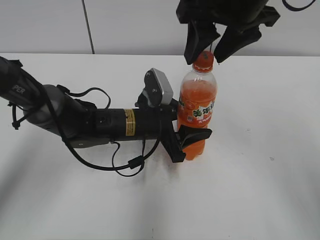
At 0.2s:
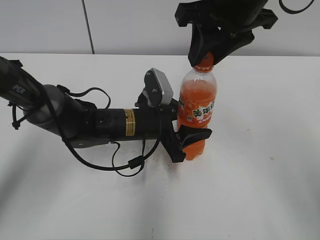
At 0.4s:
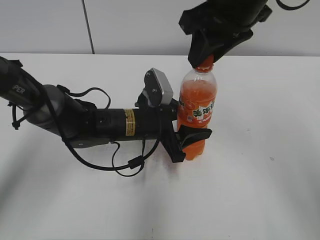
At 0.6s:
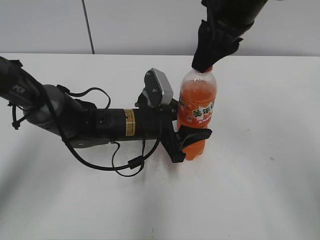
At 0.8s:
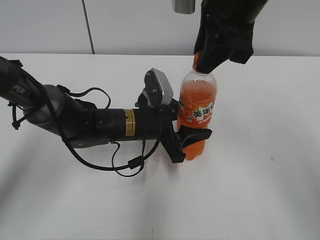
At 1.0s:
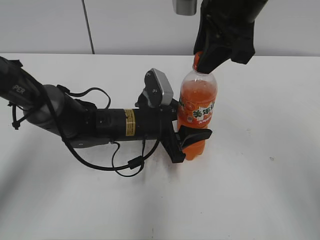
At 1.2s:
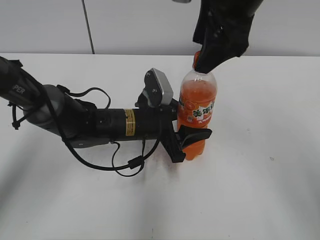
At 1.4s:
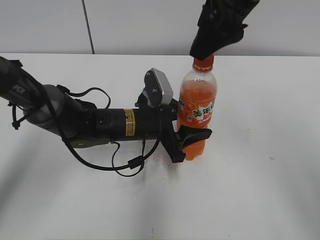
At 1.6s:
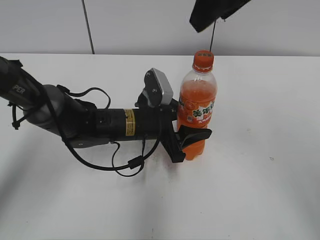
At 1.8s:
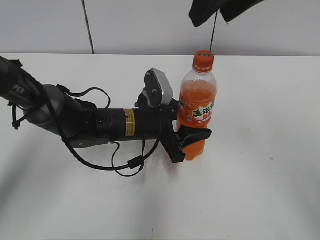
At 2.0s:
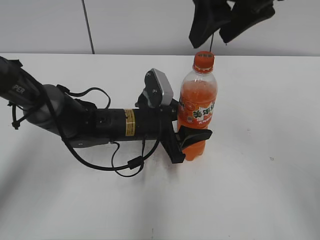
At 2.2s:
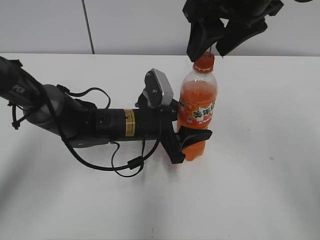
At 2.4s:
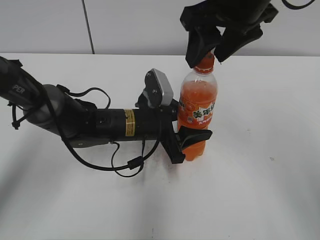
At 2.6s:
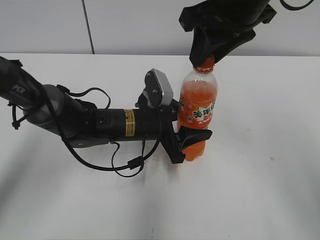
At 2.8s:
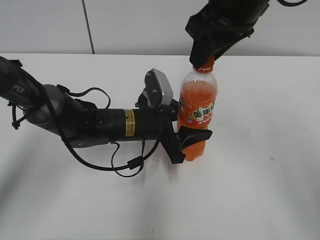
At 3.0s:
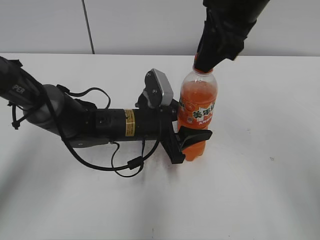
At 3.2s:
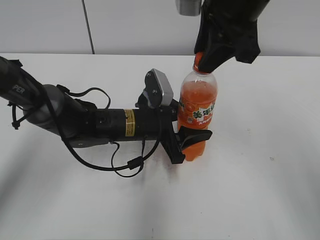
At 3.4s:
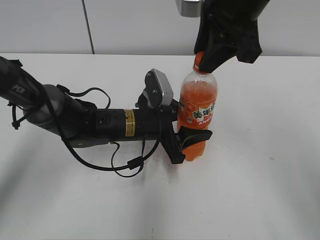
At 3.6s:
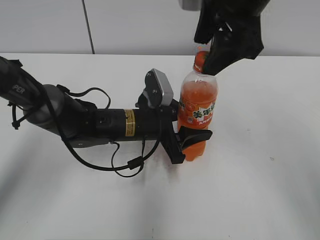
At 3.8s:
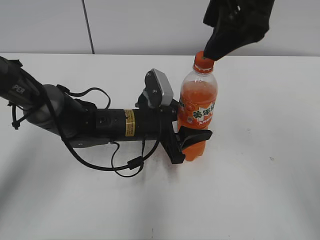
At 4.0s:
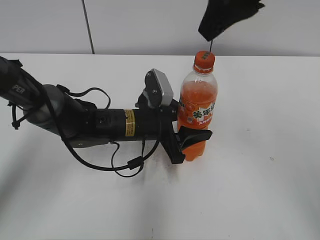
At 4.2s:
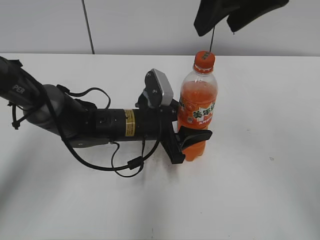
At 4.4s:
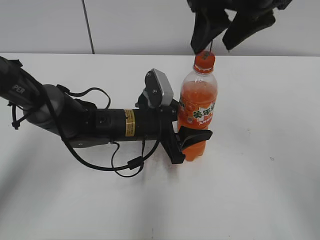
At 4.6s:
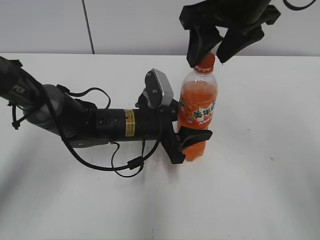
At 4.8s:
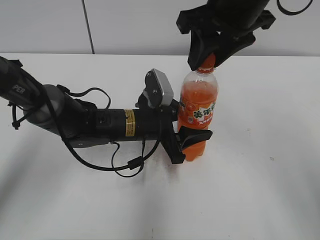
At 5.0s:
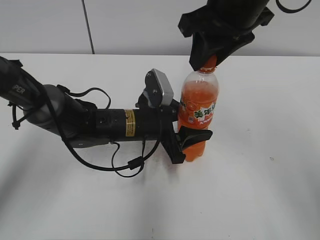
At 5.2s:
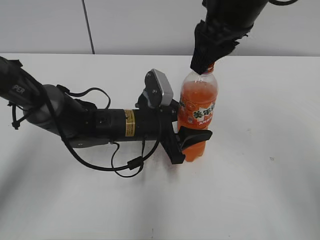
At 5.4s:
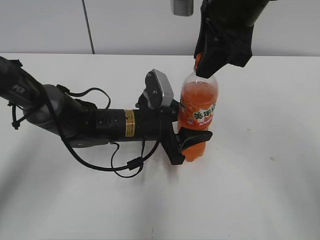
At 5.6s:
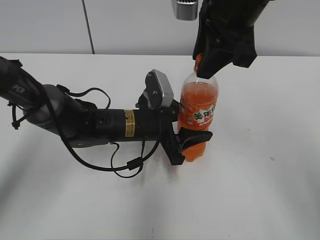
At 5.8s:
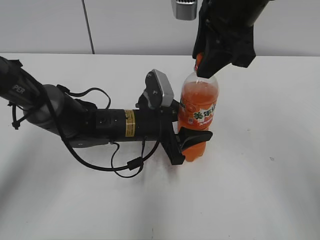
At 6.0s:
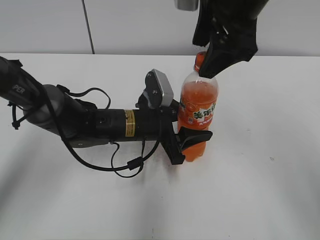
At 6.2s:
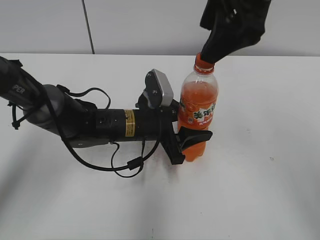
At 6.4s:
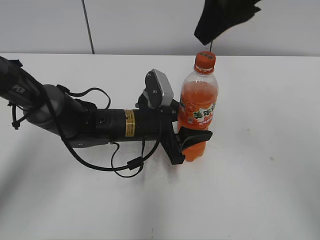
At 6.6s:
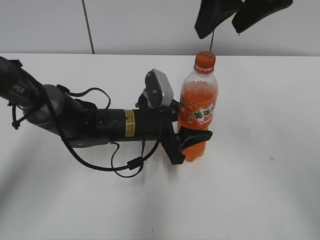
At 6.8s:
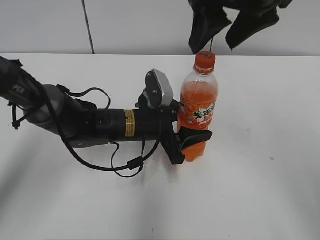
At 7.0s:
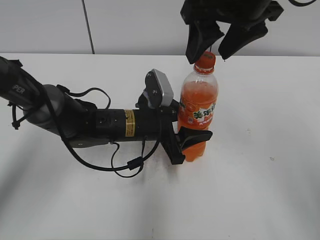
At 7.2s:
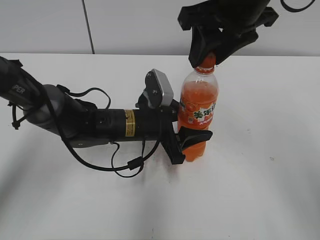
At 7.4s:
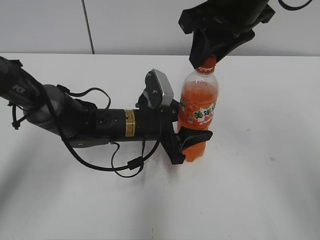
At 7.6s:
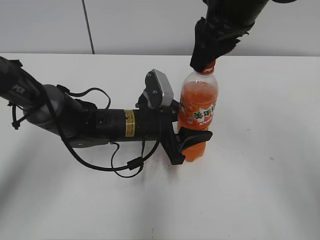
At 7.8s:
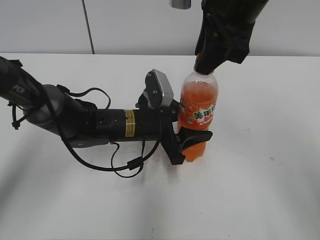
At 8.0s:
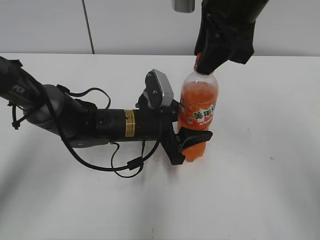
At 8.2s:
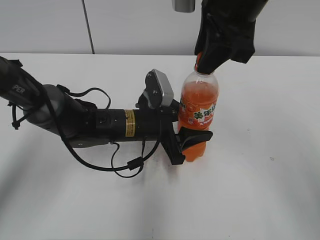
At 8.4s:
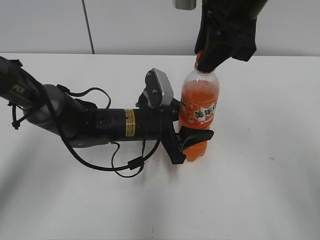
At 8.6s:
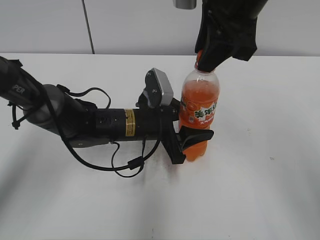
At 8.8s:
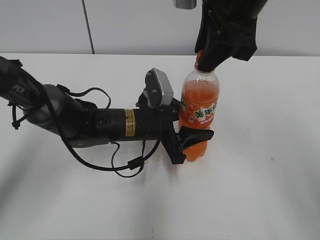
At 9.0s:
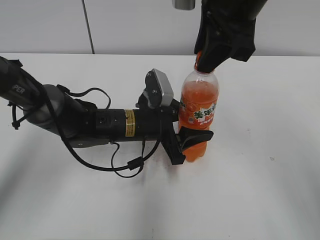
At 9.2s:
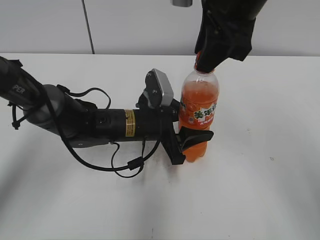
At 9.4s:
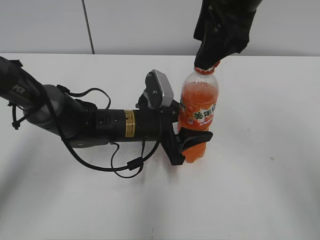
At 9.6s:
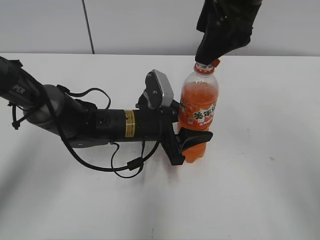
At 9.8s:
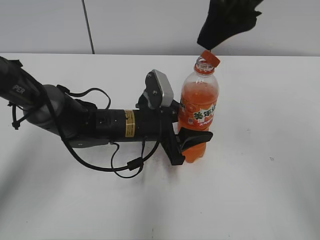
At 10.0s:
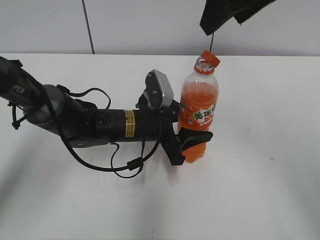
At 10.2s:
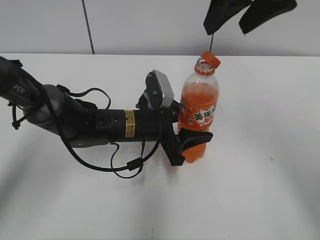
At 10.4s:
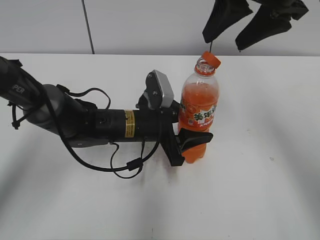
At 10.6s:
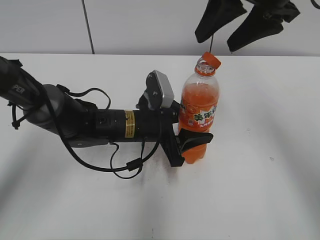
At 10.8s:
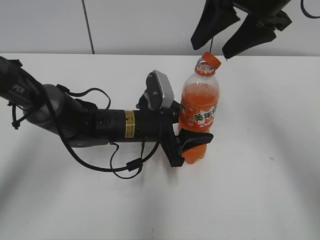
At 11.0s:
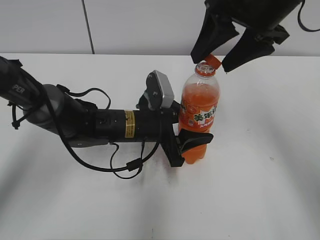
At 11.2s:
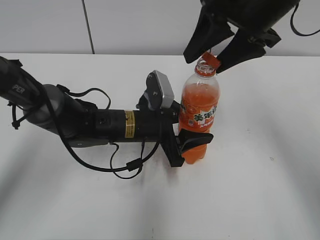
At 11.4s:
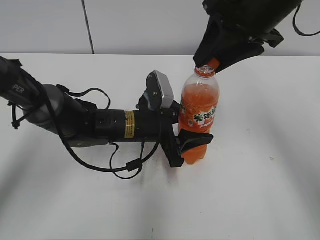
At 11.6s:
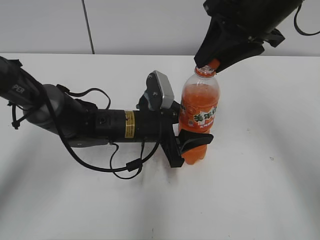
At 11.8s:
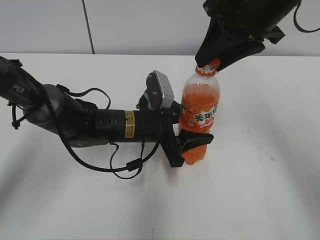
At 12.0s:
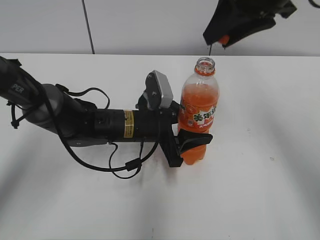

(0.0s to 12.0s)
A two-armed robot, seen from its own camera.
0.0s - 1.6s: The right gripper moves upward, approximately 5 cm, and closes, then reopens.
1.6s - 3.0s: The right gripper moves downward, roughly 5 cm, and closes up.
3.0s - 4.4s: The right gripper opens up.
4.4s - 6.0s: The right gripper closes, then reopens.
6.0s - 7.6s: The right gripper closes up.
9.0s - 10.4s: The right gripper goes some 5 cm to the right, and opens up.
10.4s - 12.0s: The right gripper closes up.

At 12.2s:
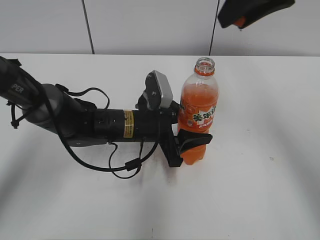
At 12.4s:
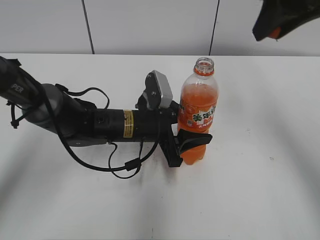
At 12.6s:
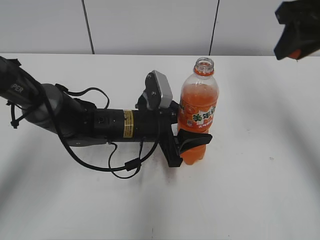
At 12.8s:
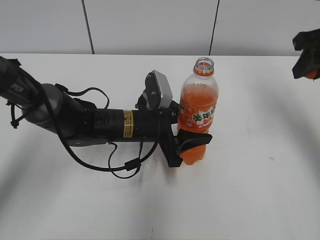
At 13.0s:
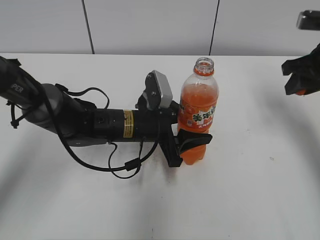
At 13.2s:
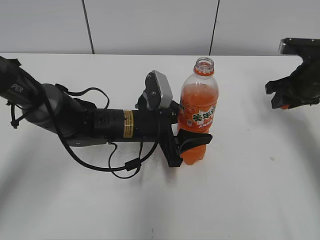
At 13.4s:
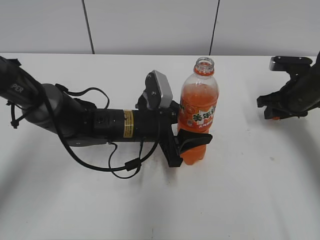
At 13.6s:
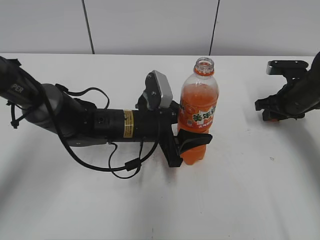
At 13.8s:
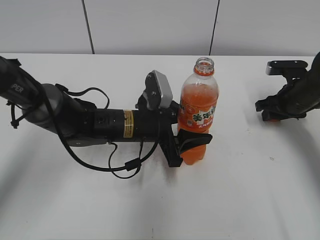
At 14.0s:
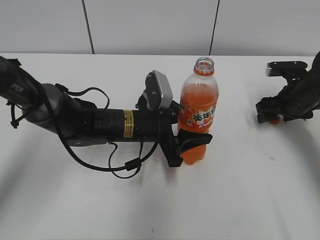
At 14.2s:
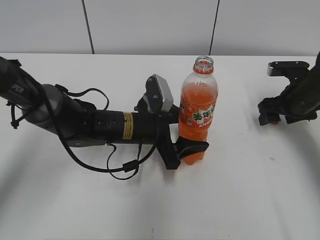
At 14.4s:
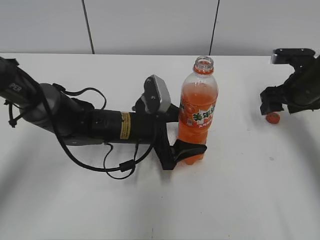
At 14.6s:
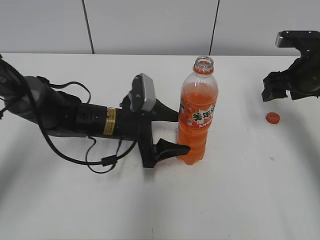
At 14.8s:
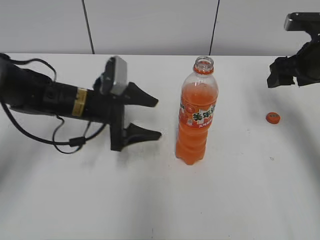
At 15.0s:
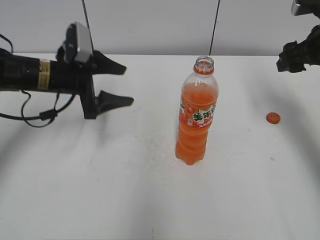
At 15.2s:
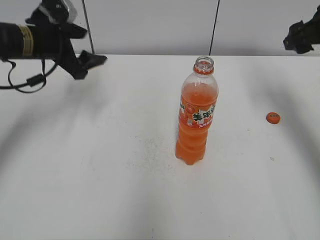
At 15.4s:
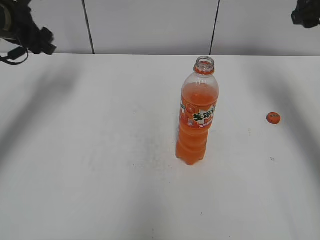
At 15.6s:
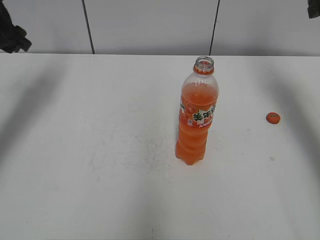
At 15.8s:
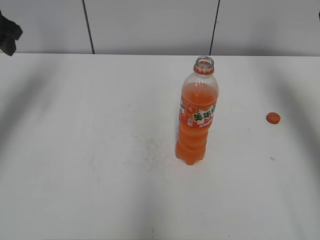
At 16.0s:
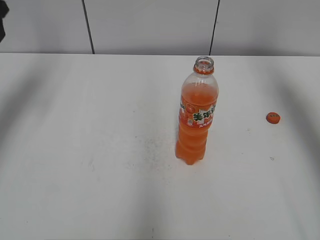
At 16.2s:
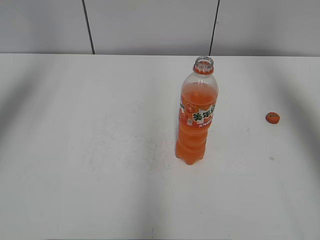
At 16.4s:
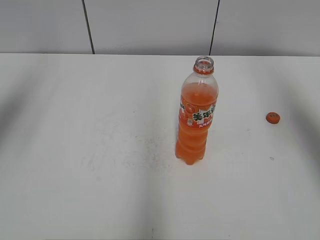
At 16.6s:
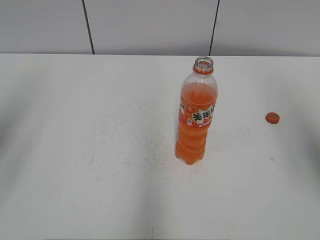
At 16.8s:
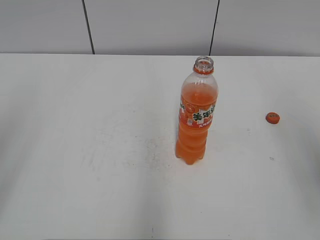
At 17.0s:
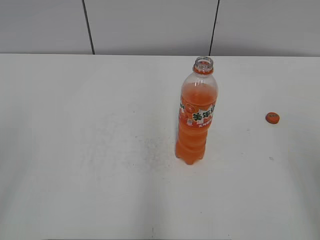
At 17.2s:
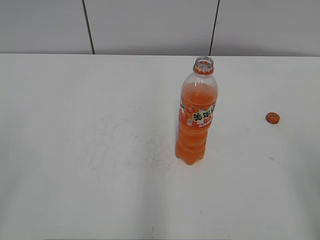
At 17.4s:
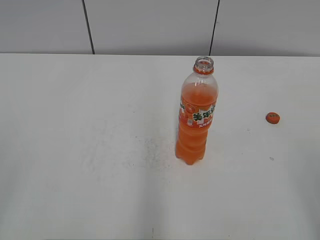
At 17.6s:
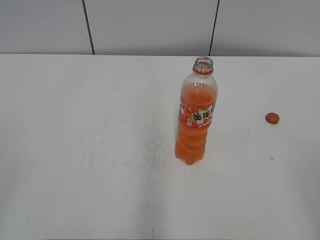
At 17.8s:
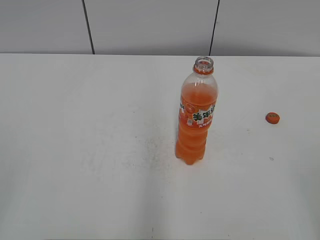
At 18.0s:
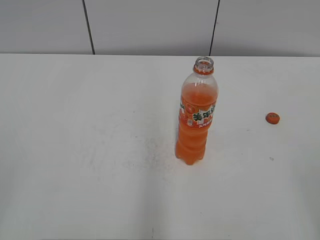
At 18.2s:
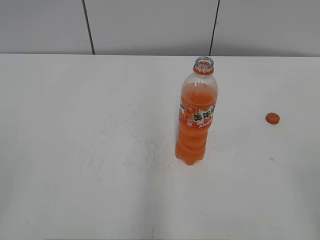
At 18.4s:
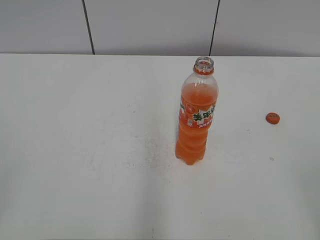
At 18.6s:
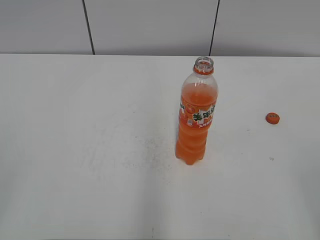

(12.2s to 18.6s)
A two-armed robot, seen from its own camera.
Step, 12.2s - 13.8s: Place the bottle cap on the right.
Step, 14.0s - 14.2s: Place the Mirinda with the left hand.
12.2s - 13.8s: The right gripper moves downward and to the right, some 30 cm.
13.8s - 15.4s: The left gripper is displaced to the left, upward and forward by about 30 cm, and opens up. Meanwhile the right gripper heads upward, covering approximately 20 cm, and opens up.
15.4s - 17.0s: Both grippers travel together backward, approximately 35 cm.

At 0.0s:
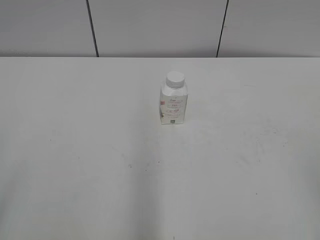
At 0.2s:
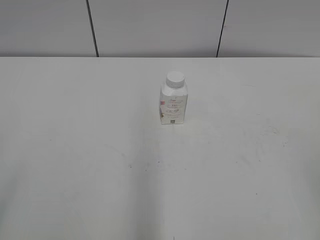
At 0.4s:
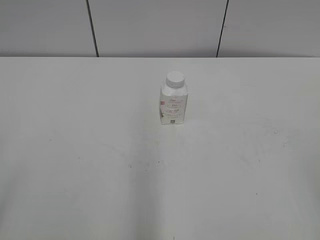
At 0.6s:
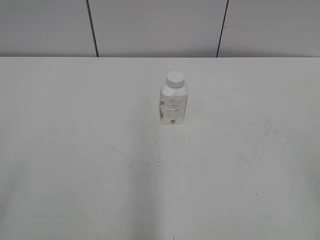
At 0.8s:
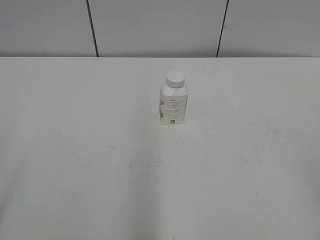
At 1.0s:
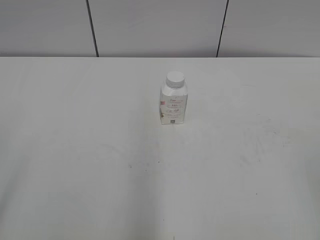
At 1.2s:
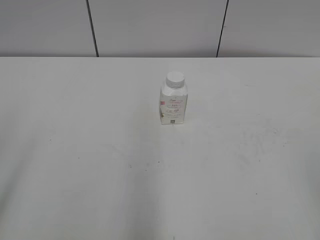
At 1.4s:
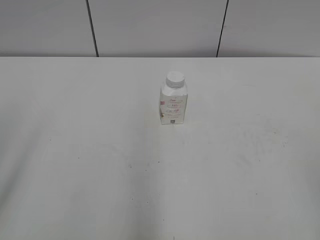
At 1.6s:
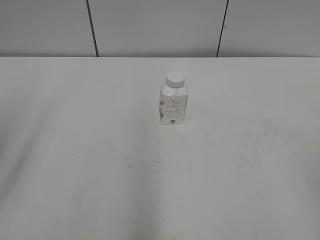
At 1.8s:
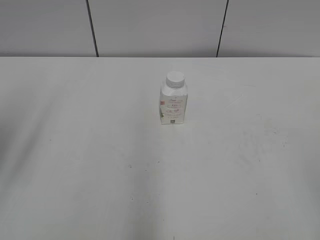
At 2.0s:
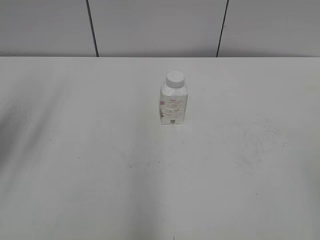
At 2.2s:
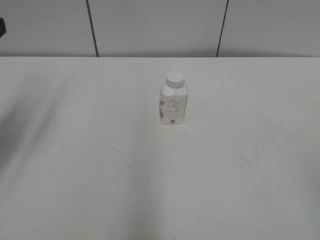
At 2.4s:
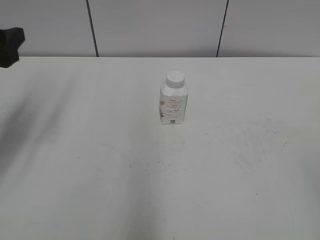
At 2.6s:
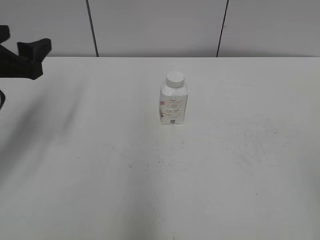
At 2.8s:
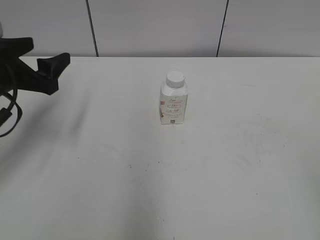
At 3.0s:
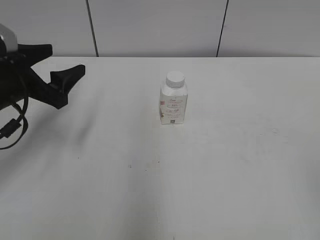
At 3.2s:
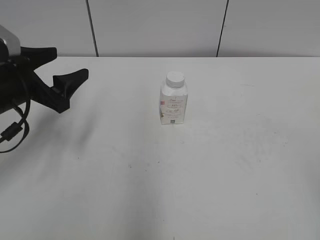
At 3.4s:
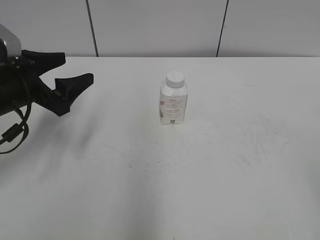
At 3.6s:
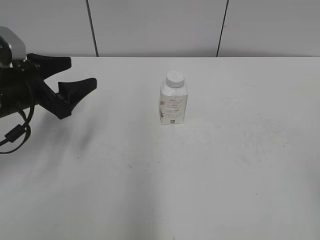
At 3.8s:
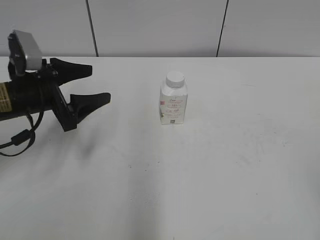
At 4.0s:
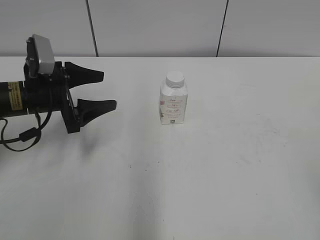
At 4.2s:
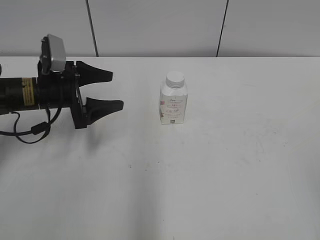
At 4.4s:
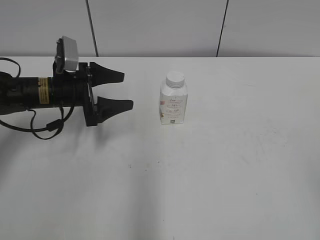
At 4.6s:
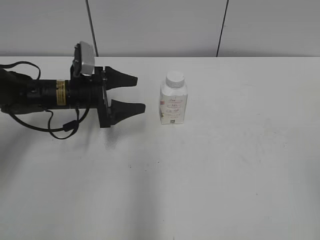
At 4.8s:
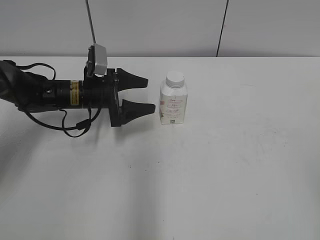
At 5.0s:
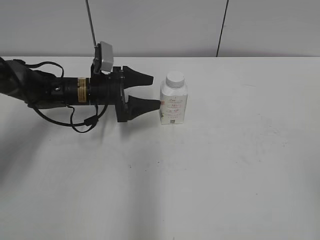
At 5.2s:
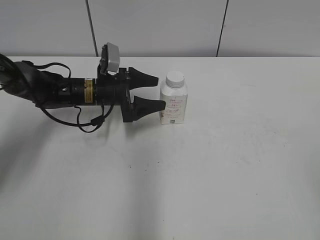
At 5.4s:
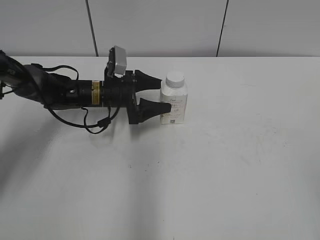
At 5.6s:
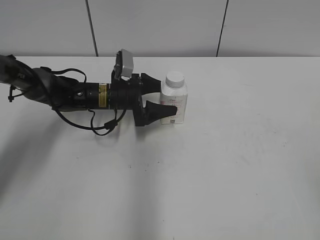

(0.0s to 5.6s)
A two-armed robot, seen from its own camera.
1.4s - 2.8s: The left gripper heads forward and downward, covering approximately 25 cm.
2.8s - 4.2s: The left gripper heads downward and forward, covering some 10 cm.
4.2s - 5.6s: The left gripper shifts approximately 15 cm to the right, forward and downward.
